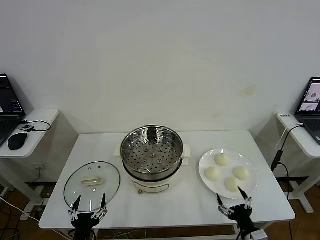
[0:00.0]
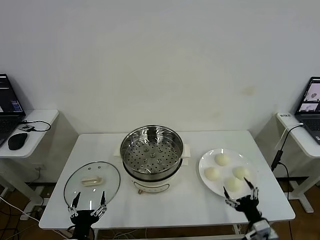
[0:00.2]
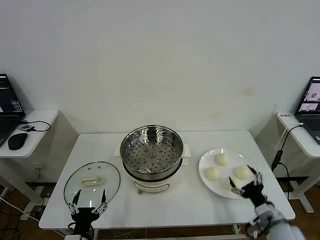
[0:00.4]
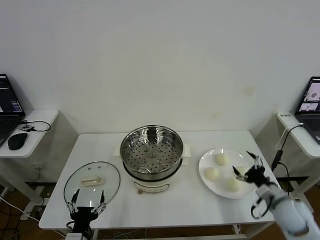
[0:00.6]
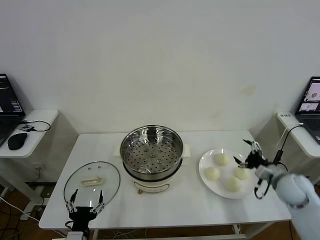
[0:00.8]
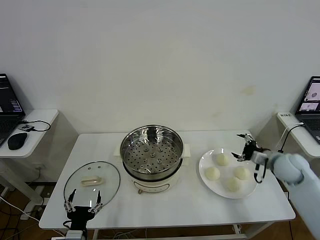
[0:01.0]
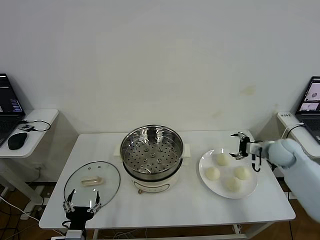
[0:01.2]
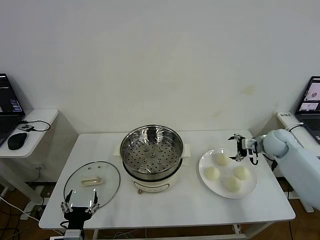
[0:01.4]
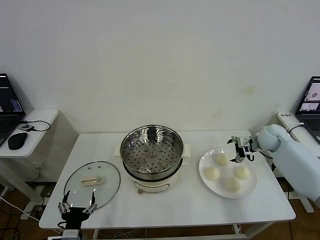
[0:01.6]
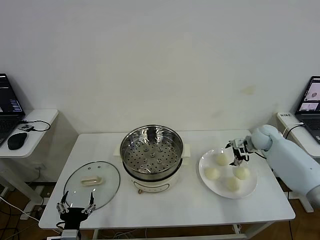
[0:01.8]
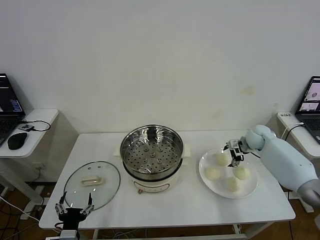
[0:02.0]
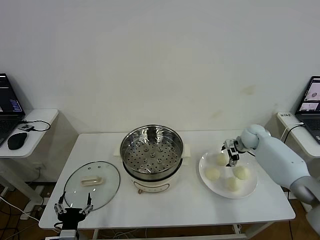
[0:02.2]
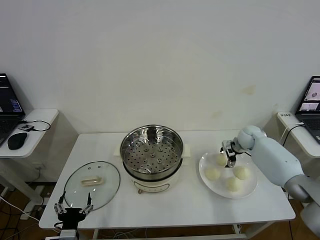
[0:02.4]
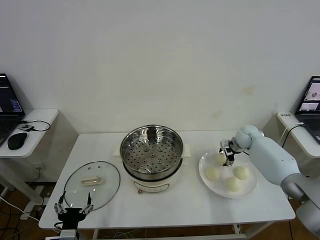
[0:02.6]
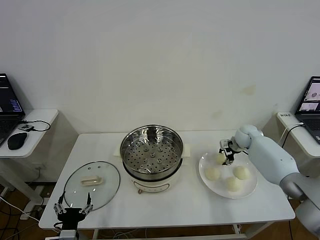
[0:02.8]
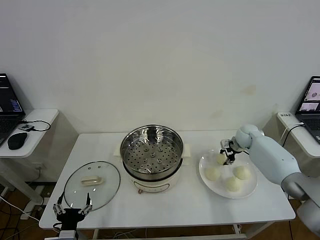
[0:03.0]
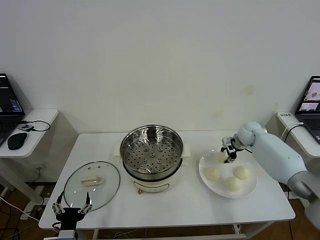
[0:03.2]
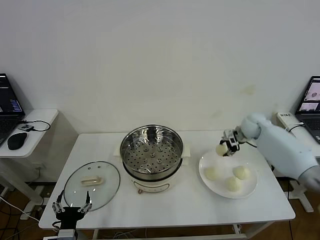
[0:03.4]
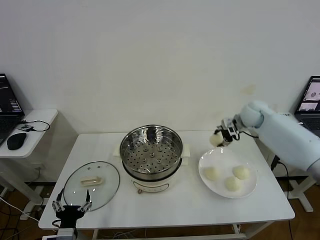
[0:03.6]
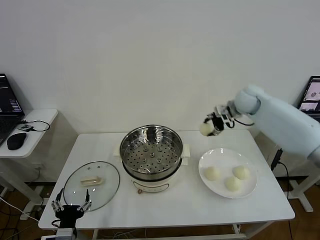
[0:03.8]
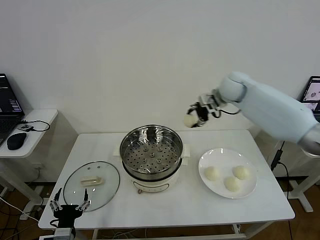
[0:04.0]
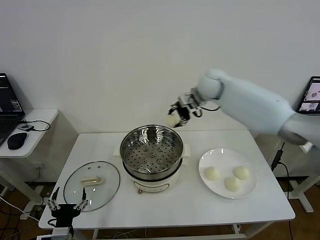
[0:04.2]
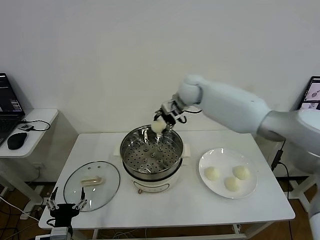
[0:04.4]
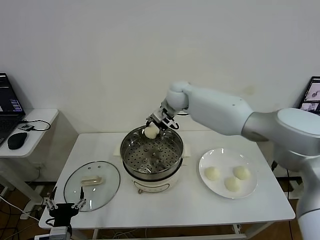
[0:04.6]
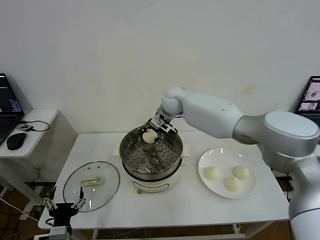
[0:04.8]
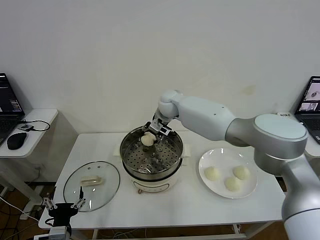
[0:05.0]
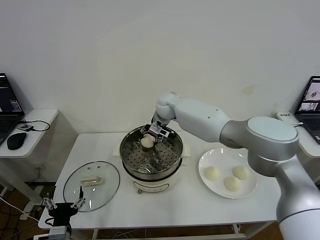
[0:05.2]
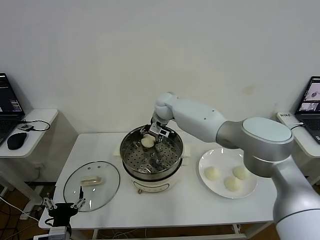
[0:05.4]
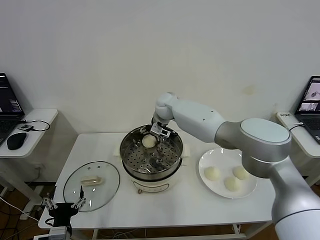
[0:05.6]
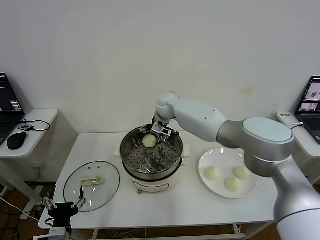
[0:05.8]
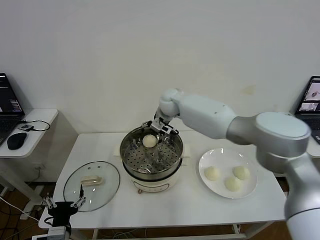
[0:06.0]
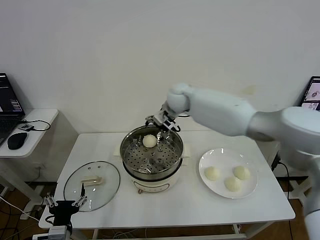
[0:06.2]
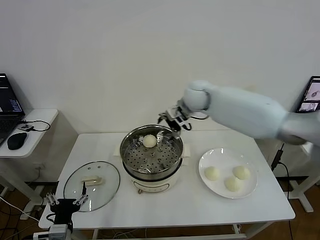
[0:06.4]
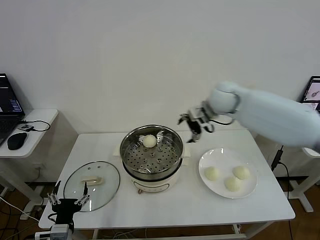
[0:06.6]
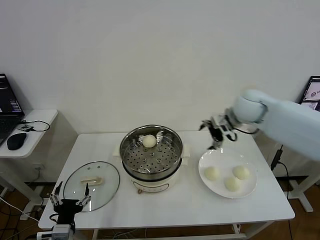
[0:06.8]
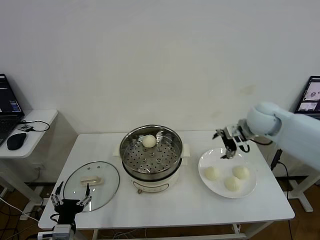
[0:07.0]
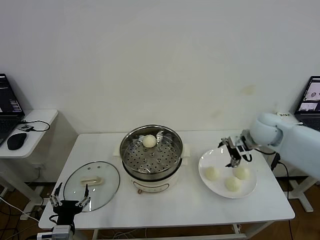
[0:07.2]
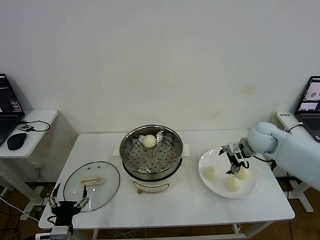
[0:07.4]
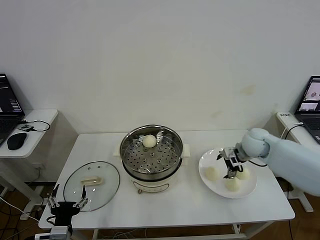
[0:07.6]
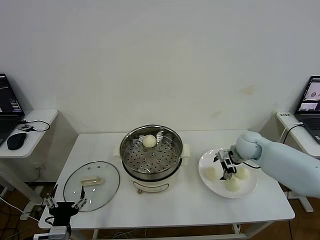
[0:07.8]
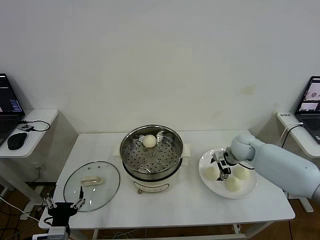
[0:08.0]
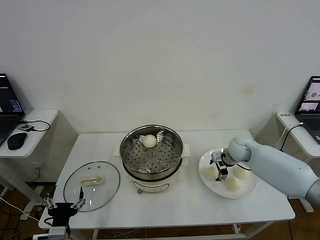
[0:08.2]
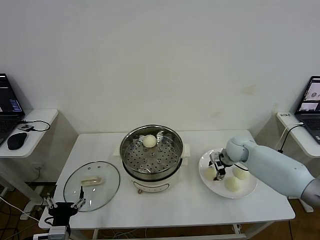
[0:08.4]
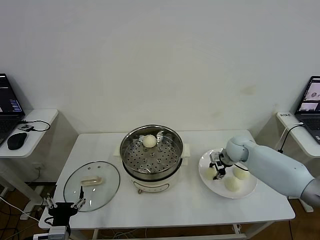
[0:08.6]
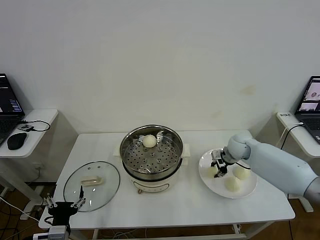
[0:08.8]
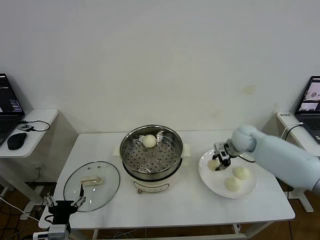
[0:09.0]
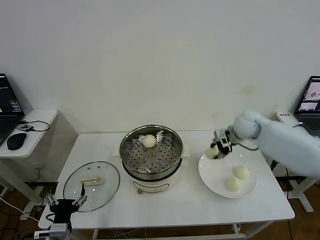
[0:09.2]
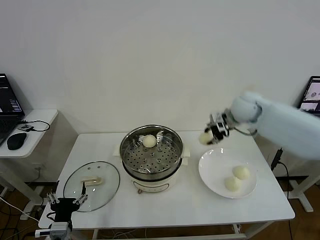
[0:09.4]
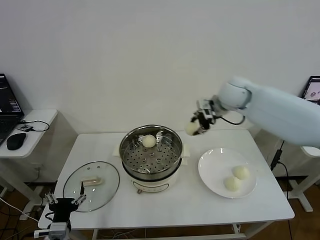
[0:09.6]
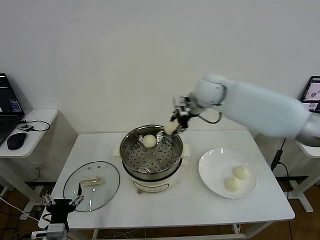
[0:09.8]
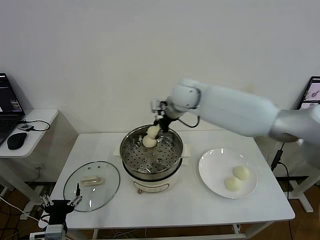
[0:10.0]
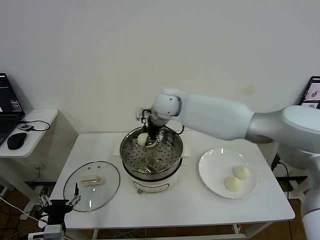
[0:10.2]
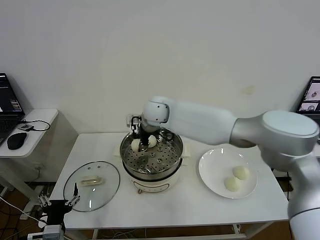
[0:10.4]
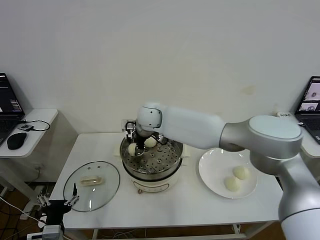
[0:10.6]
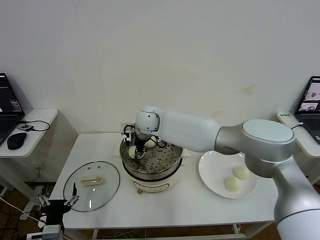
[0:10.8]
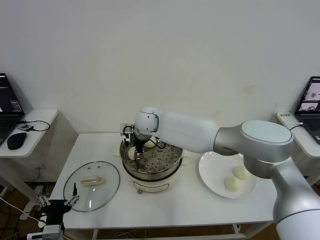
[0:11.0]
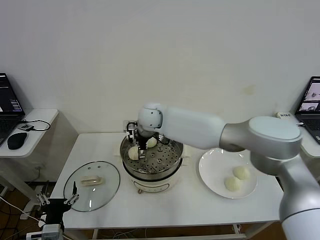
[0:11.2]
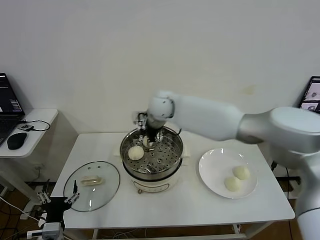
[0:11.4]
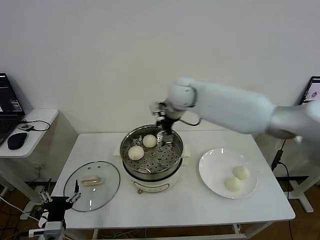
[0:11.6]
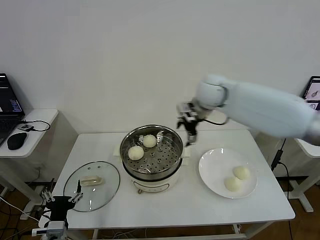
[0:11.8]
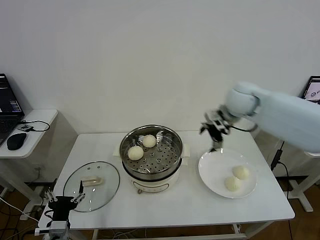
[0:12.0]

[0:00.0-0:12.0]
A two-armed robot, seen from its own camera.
Step, 0:00.0 to 0:02.8: Grasp the baozi in the plate with right gripper.
Step, 0:03.2 to 0:05.8: Place the baozi on the steamer with right gripper.
Step, 0:06.0 to 0:08.4: Grasp the baozi in the plate with right gripper.
Step, 0:08.8 to 0:11.0: Place the baozi on the steamer with right gripper.
0:01.6 to 0:03.0: The right gripper shifts by about 5 cm, and closes its fingers.
0:03.0 to 0:04.4: The right gripper moves to the left and upward, some 35 cm.
0:04.4 to 0:06.0: The right gripper opens up.
0:06.0 to 0:07.6: The right gripper travels to the right and downward by approximately 30 cm.
0:07.6 to 0:09.0: The right gripper heads upward, covering approximately 5 cm, and closes.
0:09.0 to 0:10.4: The right gripper goes approximately 35 cm to the left.
0:10.4 to 0:12.0: The right gripper is displaced to the right by roughly 30 cm, and opens its fingers.

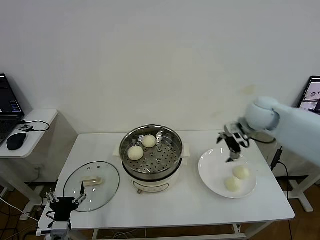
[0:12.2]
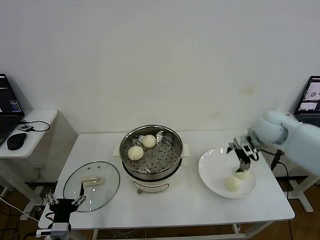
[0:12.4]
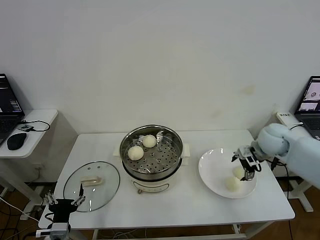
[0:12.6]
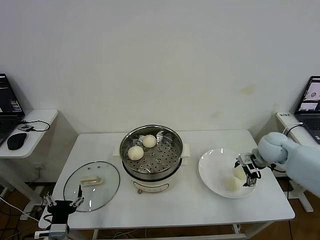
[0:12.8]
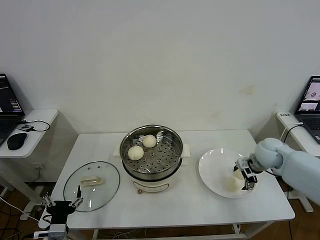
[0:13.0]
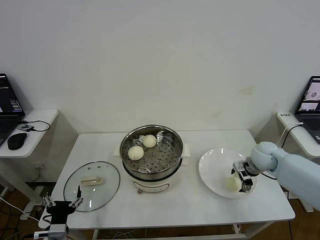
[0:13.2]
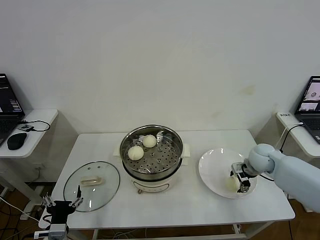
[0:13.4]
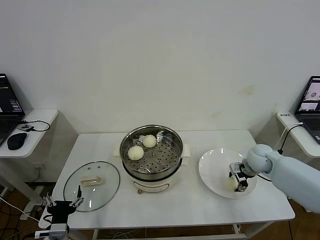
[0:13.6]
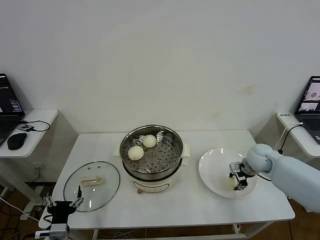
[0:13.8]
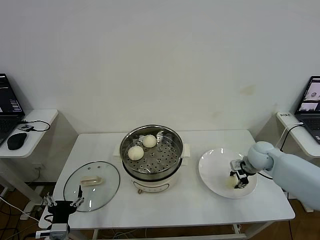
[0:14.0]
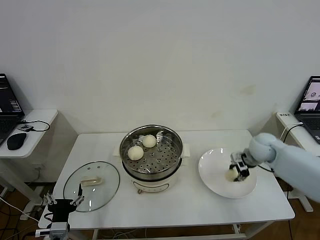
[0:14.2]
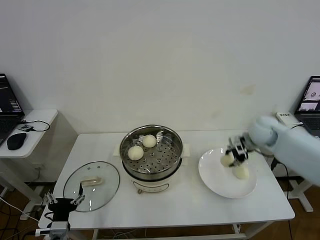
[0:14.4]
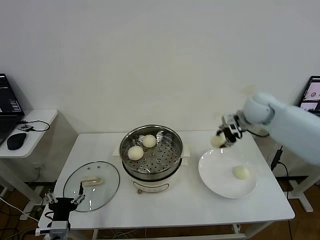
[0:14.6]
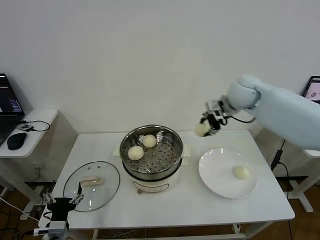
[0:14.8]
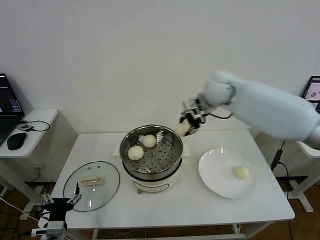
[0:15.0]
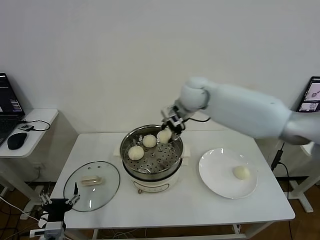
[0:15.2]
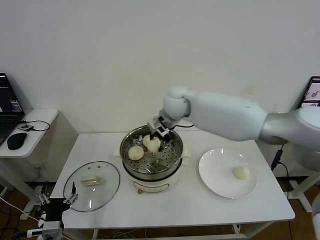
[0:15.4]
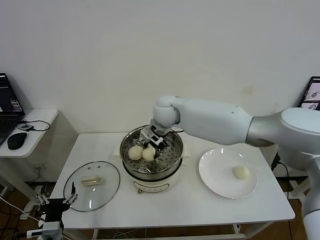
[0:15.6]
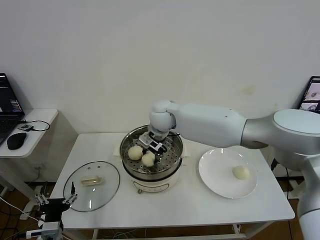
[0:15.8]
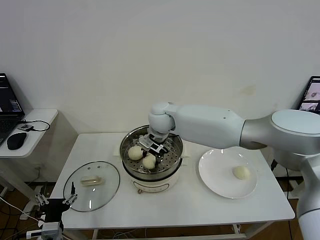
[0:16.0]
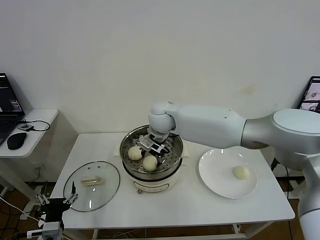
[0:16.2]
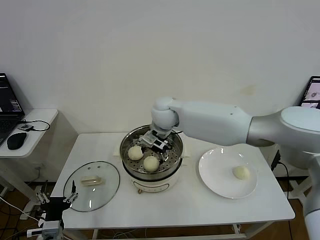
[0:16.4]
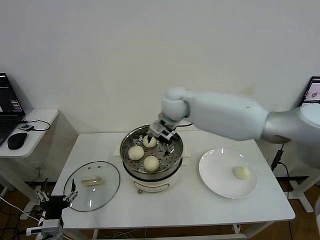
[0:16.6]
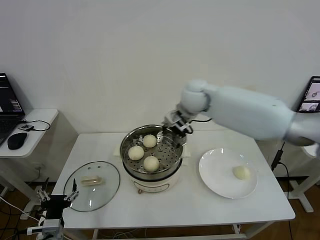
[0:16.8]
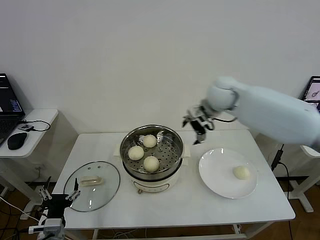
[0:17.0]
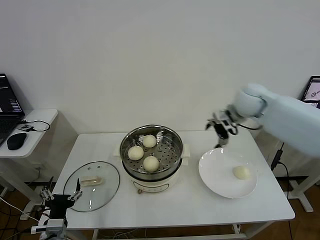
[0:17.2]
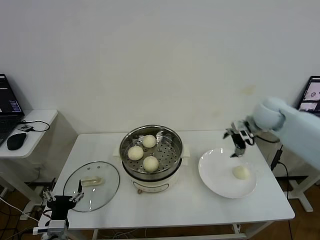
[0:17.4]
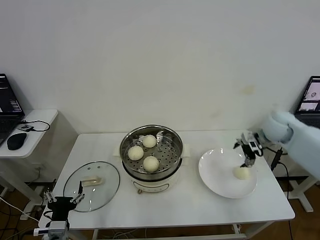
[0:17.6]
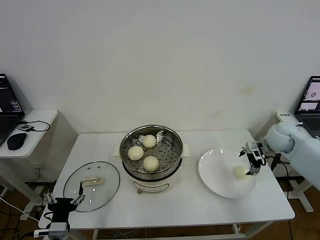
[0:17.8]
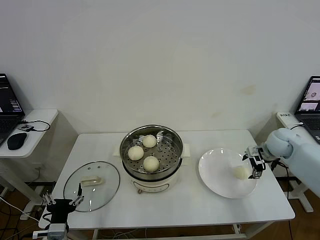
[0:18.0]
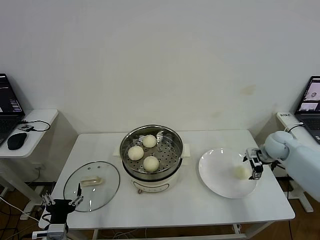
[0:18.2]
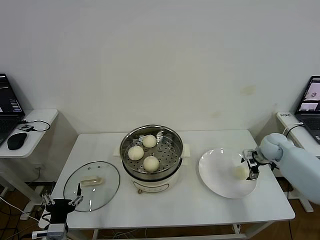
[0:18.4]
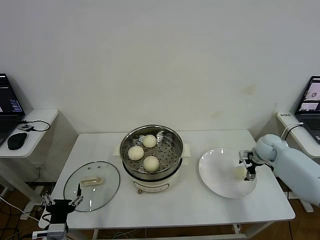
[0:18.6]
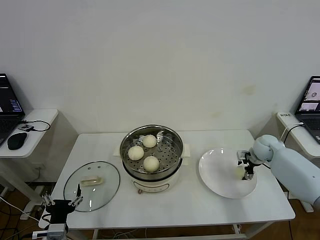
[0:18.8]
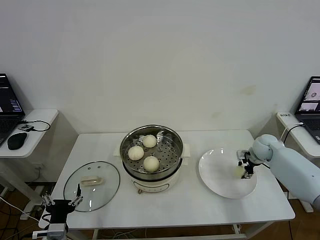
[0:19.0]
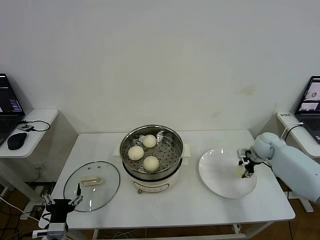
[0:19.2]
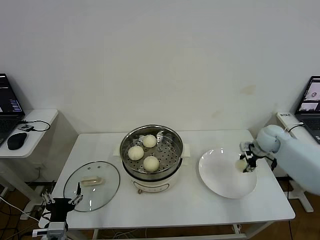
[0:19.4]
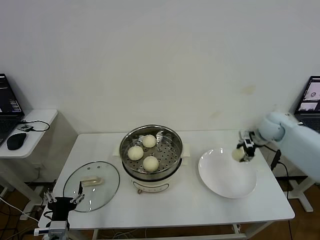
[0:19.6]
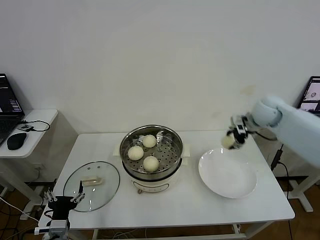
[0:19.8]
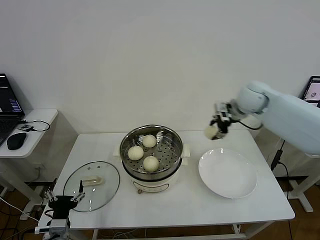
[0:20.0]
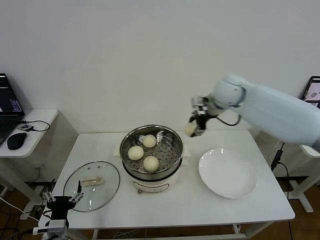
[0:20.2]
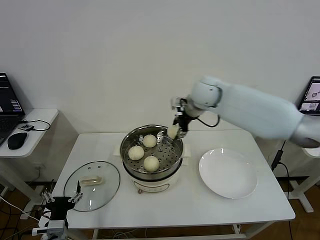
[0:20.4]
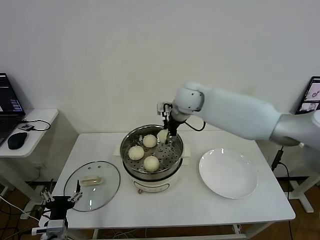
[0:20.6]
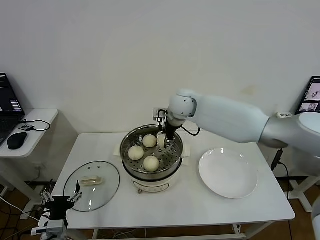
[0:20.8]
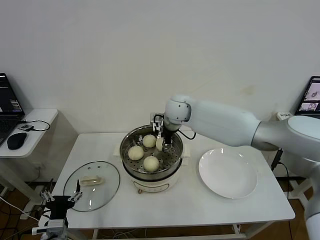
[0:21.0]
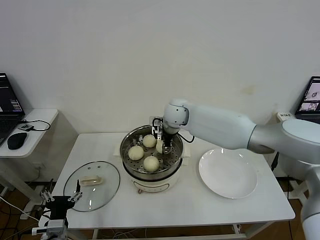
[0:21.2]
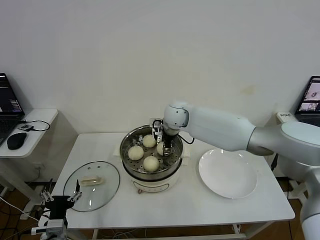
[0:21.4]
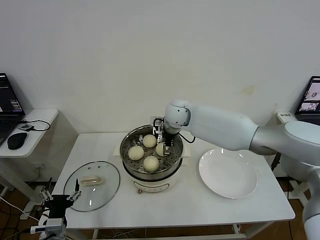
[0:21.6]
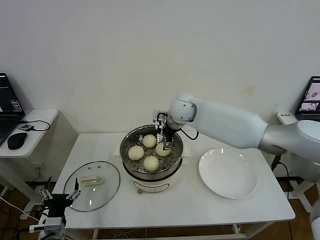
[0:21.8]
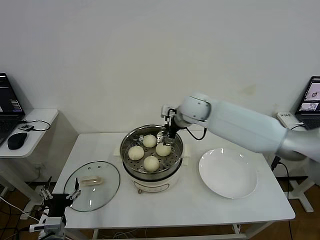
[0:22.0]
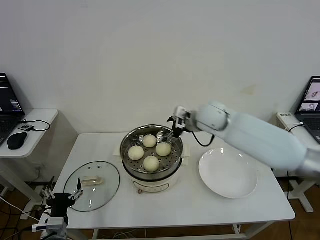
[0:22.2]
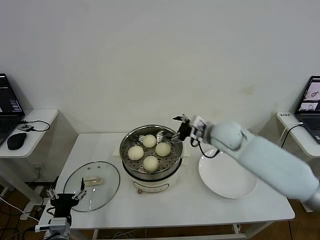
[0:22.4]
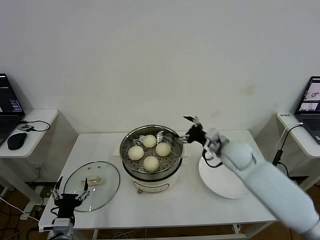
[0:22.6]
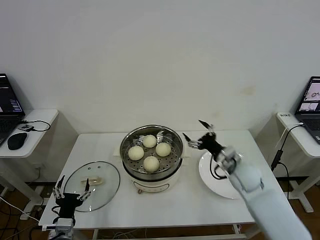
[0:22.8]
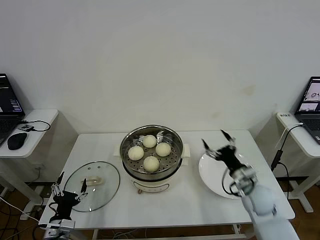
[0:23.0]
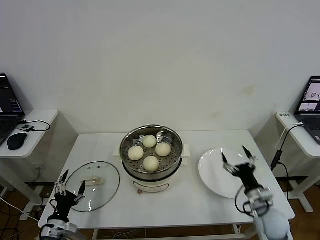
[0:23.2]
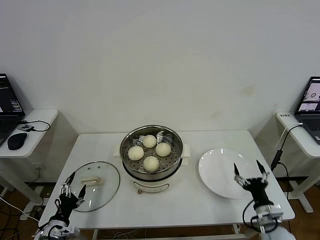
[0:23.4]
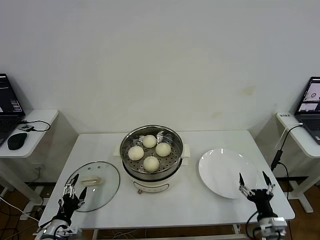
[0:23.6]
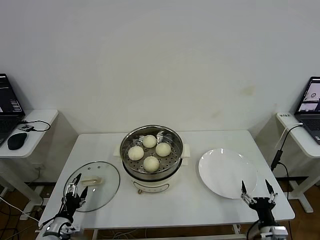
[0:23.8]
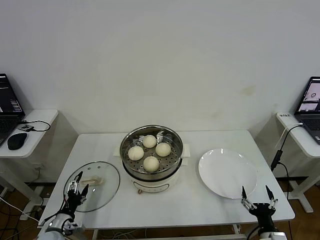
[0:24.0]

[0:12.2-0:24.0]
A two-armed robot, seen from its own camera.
Step, 0:12.2 to 0:13.8: Grasp the baozi in the plate with right gripper.
Step, 0:14.0 to 0:16.2: Place the baozi on the steamer with right gripper.
Step, 0:16.4 to 0:19.0: Grasp the baozi in the plate with right gripper.
Step, 0:19.4 to 0:21.6: Place the baozi on the steamer with right gripper.
0:12.2 to 0:13.6: The right gripper travels downward by approximately 15 cm, and closes its fingers.
0:13.6 to 0:15.2: The right gripper heads to the left and upward, covering about 35 cm.
0:15.2 to 0:16.6: The right gripper opens its fingers.
0:16.6 to 0:18.2: The right gripper travels to the right and downward by some 40 cm.
0:18.2 to 0:19.6: The right gripper goes about 10 cm upward, and closes.
0:19.6 to 0:21.0: The right gripper shifts roughly 30 cm to the left.
0:21.0 to 0:22.6: The right gripper shifts about 25 cm to the right, backward and downward, and opens.
0:22.6 to 0:24.0: The right gripper travels backward, downward and to the right by about 35 cm; the left gripper travels to the left and downward by some 10 cm.
